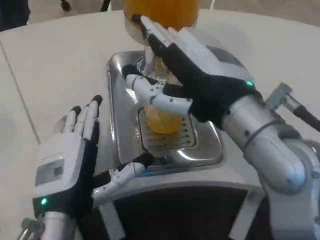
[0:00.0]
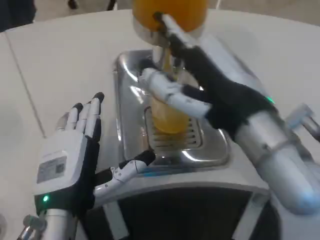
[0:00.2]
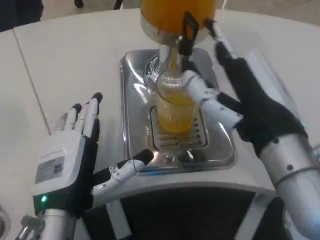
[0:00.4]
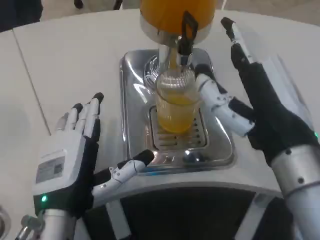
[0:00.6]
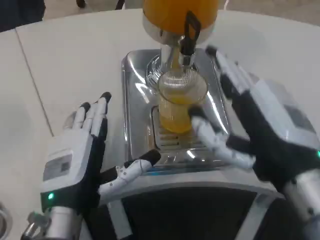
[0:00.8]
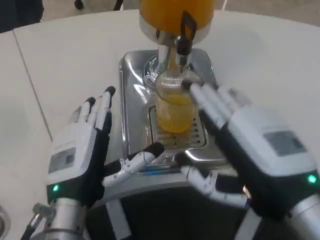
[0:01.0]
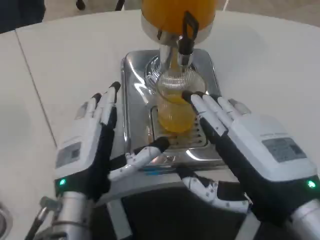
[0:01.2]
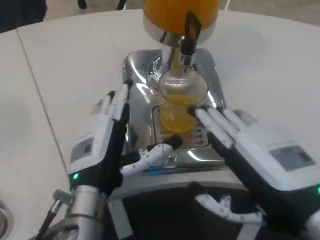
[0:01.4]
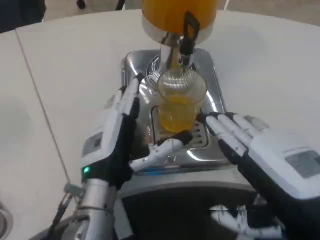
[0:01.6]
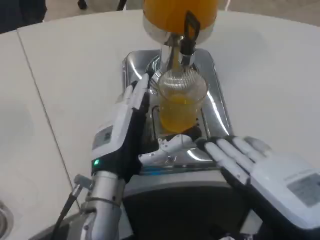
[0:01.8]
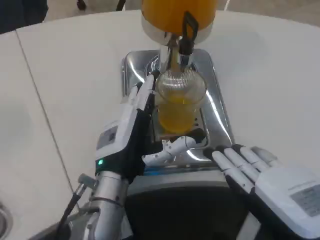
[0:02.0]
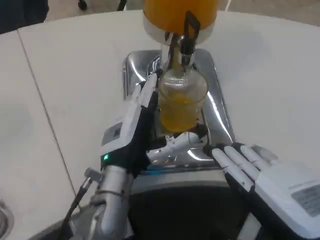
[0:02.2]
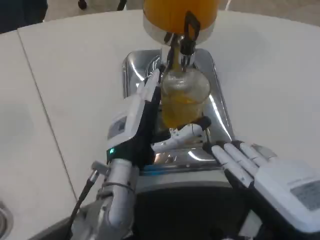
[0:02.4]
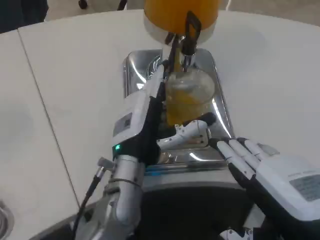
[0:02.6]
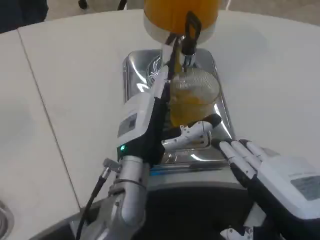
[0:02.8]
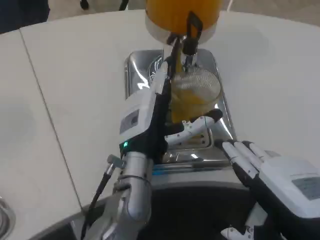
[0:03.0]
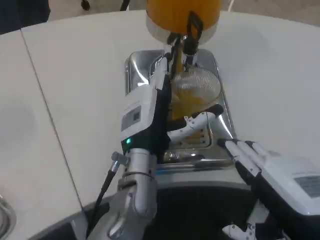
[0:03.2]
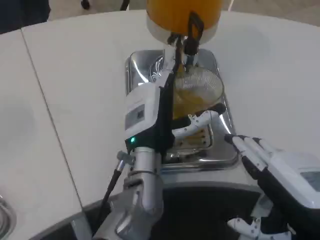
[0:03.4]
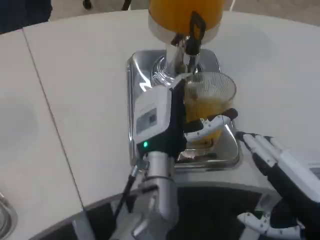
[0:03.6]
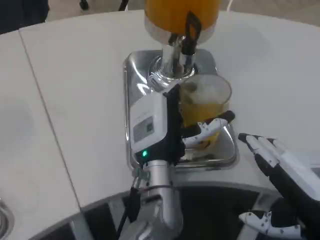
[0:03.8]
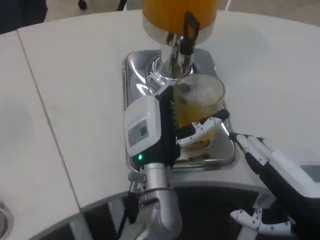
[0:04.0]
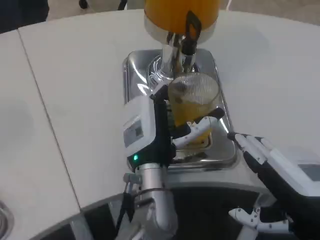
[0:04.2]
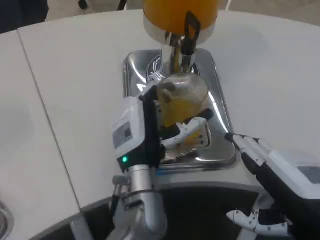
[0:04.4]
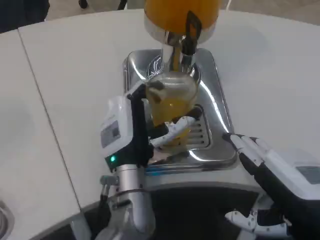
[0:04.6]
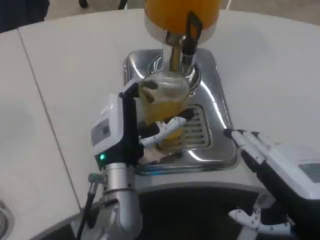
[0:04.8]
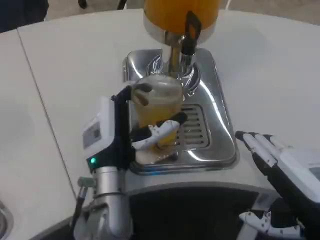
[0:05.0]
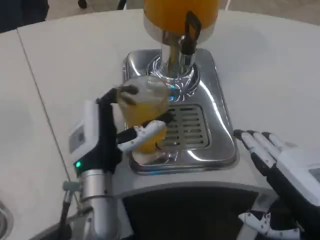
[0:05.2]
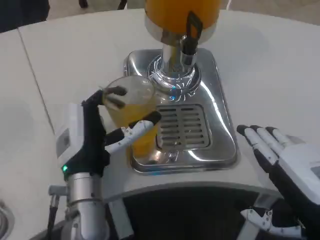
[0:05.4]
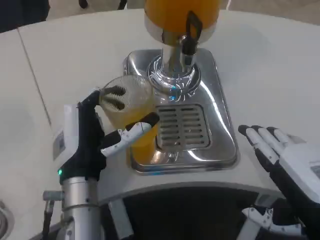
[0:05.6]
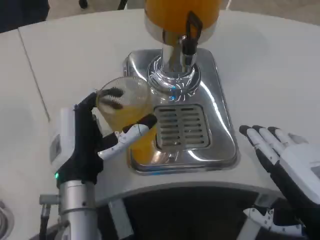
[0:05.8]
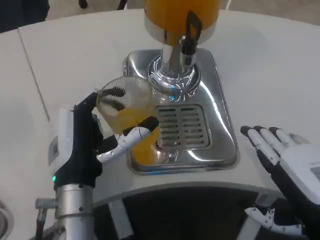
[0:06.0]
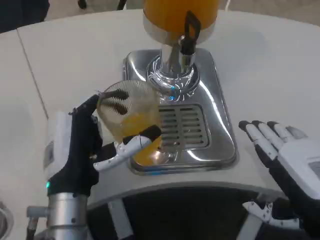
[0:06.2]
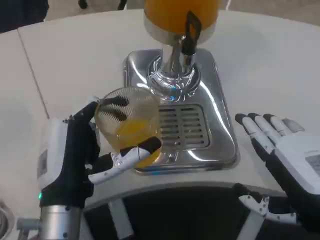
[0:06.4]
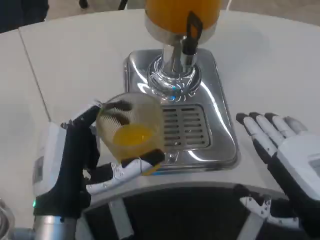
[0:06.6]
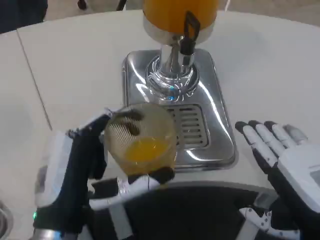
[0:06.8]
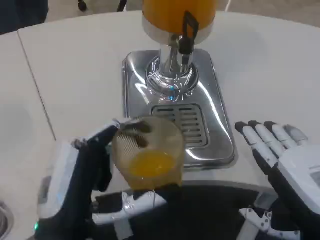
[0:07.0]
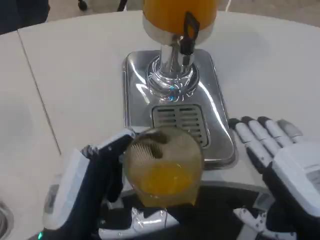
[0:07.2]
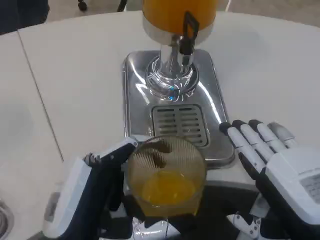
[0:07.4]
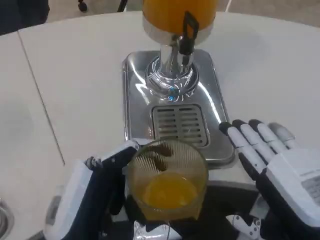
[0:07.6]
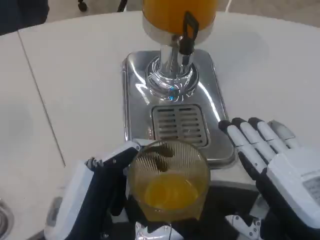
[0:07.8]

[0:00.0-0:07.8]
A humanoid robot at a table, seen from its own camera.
Task of the whole recording: Grasp the cup under the faucet to collect the drink, then remove the cup.
0:00.0 to 0:01.6: The left hand travels forward by some 5 cm. Meanwhile the right hand shifts approximately 15 cm to the right, backward and downward.
0:01.6 to 0:03.2: The left hand is displaced to the right by approximately 5 cm.
0:04.6 to 0:06.2: The left hand shifts approximately 10 cm to the left and backward.
0:06.2 to 0:07.8: The left hand moves backward, some 10 cm.

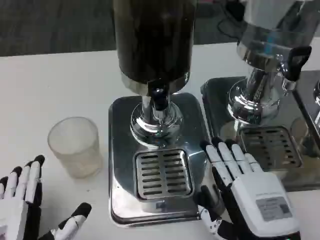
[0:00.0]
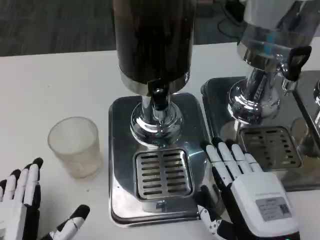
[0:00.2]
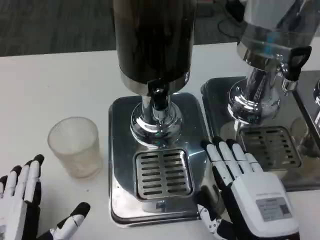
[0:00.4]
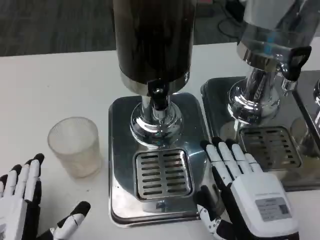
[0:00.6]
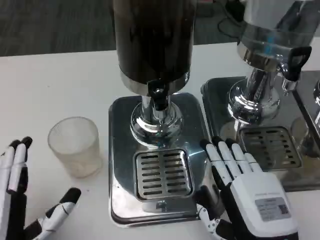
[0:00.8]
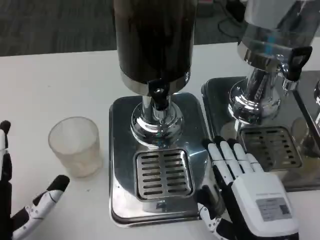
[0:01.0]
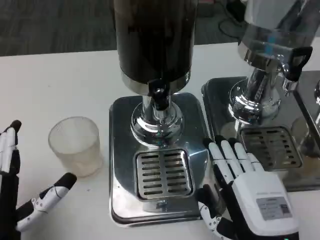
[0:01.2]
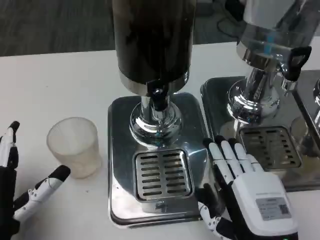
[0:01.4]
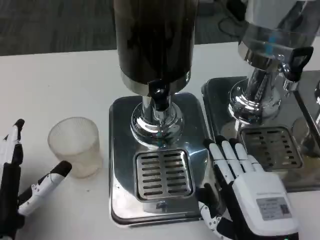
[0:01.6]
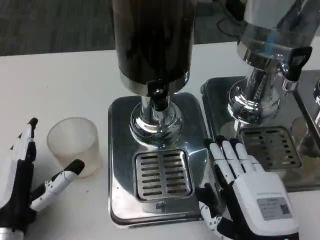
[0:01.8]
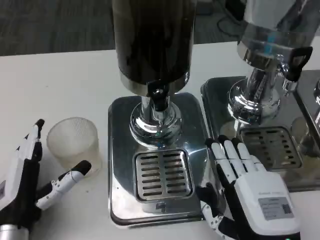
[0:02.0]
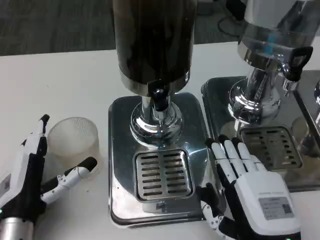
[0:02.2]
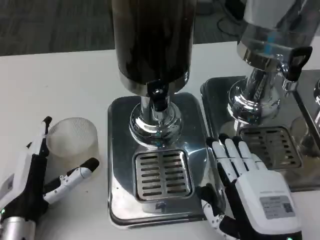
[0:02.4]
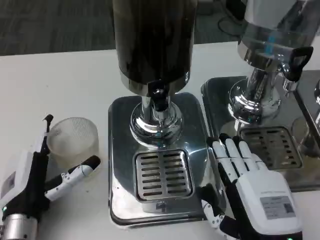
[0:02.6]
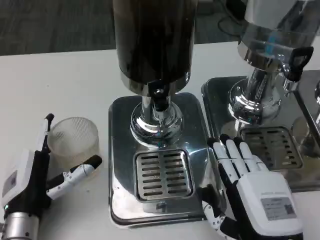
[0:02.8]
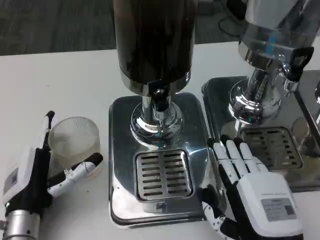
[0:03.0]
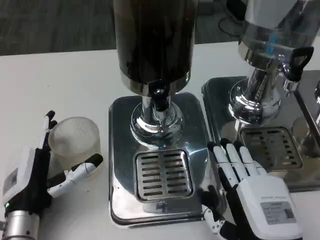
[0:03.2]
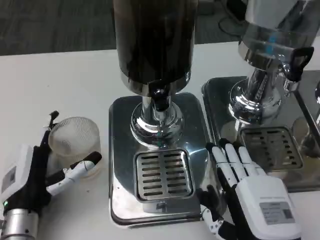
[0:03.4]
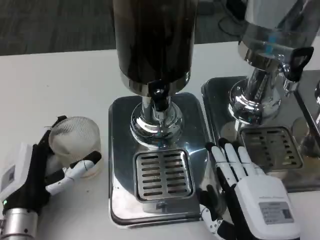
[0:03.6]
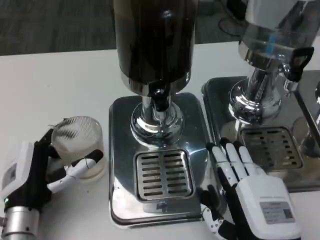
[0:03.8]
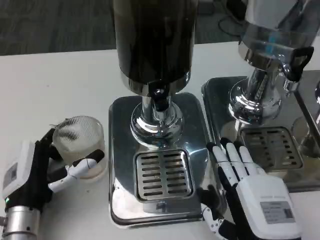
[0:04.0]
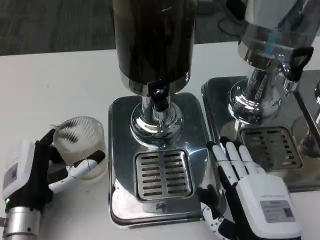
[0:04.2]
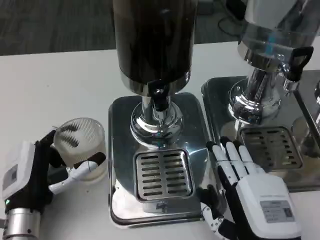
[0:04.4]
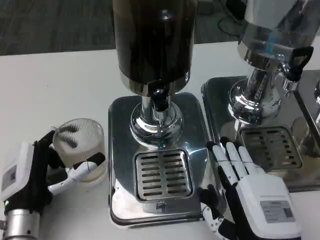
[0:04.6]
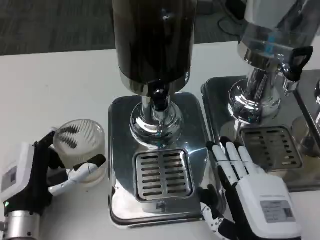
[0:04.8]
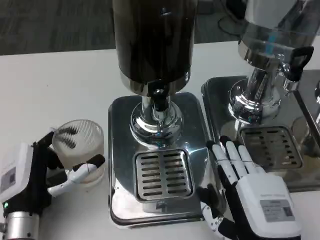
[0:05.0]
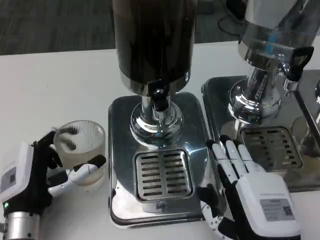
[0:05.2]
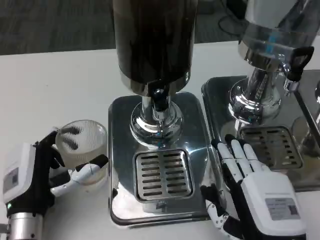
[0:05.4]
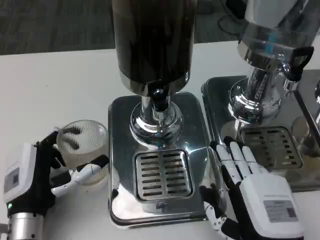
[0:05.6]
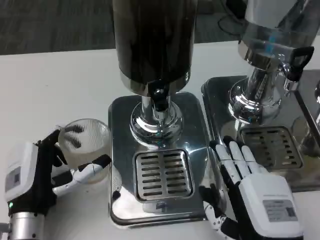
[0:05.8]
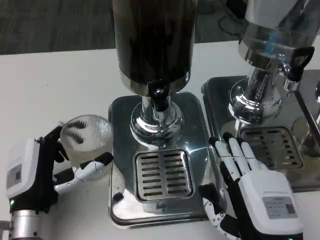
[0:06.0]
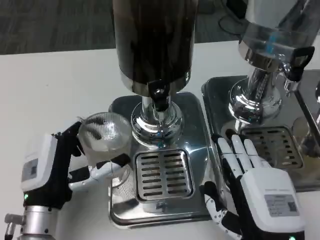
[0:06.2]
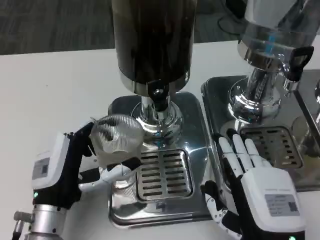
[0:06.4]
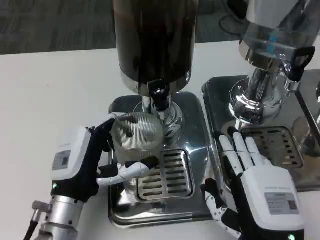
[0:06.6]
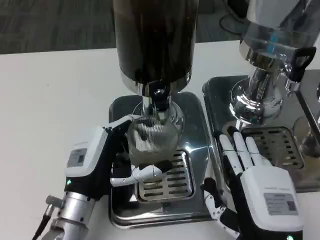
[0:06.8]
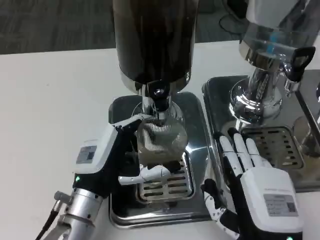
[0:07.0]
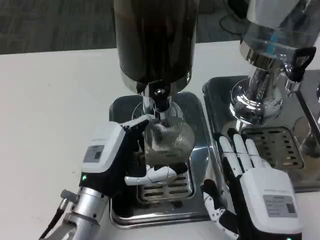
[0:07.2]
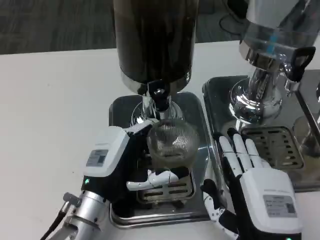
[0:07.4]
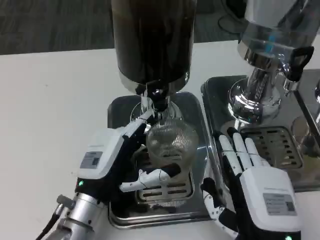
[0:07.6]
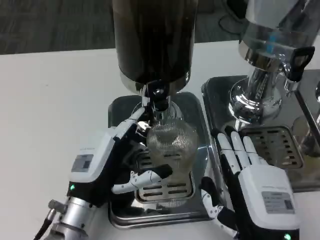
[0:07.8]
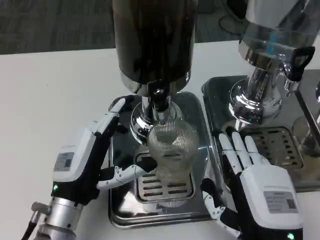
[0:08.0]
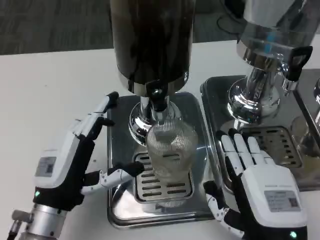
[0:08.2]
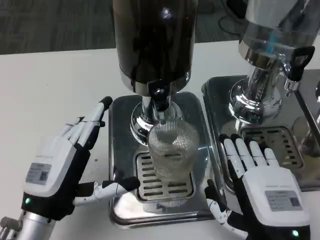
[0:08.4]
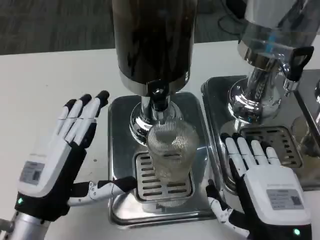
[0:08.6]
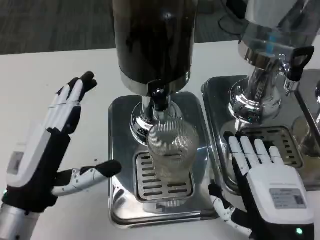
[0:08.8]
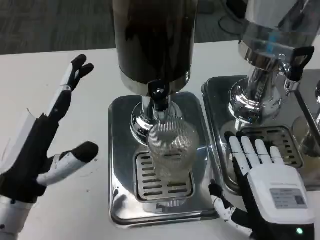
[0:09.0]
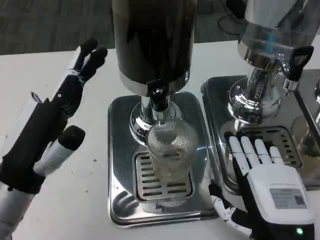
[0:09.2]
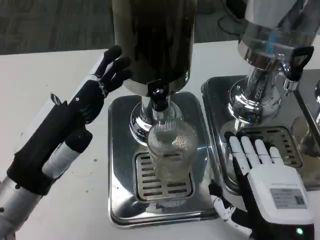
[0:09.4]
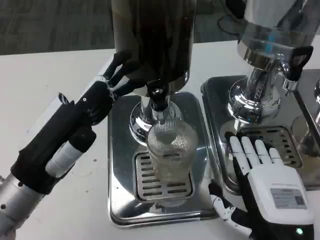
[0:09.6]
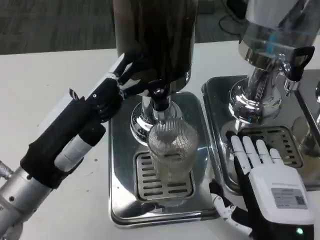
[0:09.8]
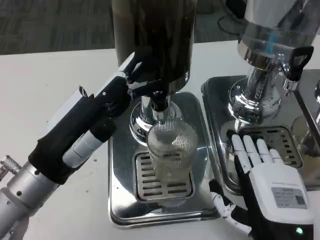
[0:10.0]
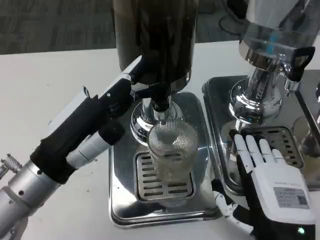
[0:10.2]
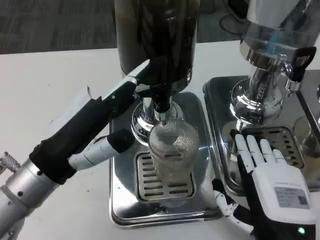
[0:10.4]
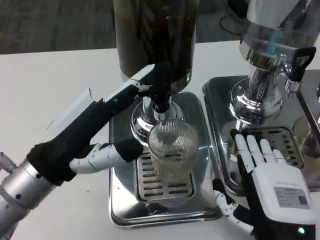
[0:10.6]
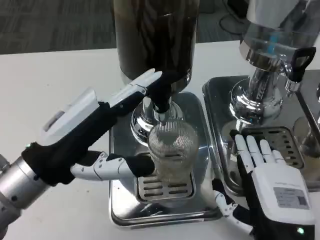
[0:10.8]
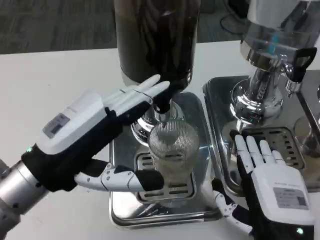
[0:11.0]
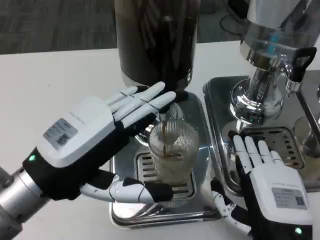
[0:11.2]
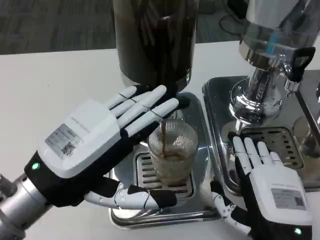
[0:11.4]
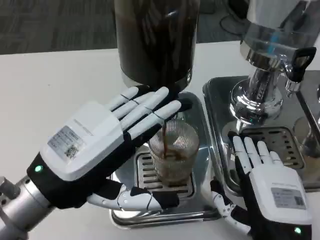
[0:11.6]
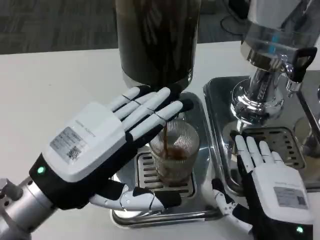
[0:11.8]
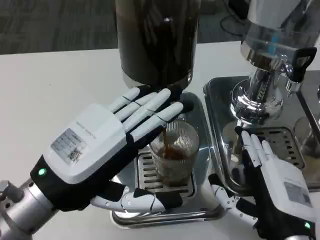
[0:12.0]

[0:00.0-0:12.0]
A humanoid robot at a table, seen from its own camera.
Task of the whole recording: Grasp the cup under the faucet to collect the drink, then remove the cup.
0:00.0 to 0:01.6: The left hand is displaced forward by roughly 5 cm.
0:01.6 to 0:06.0: The hands stay close to where they were, moving slightly.
0:06.0 to 0:07.6: The left hand goes about 5 cm to the right.
0:07.6 to 0:09.0: The left hand travels upward and to the left by about 10 cm.
0:09.0 to 0:10.4: The left hand shifts by approximately 5 cm.

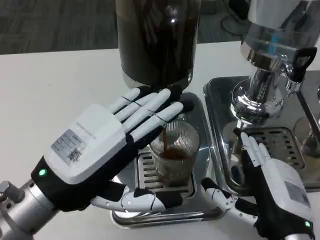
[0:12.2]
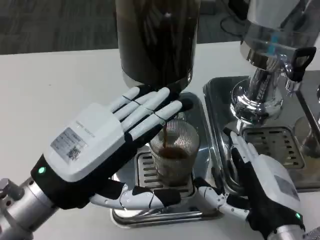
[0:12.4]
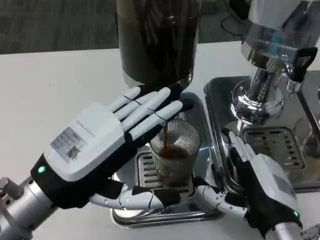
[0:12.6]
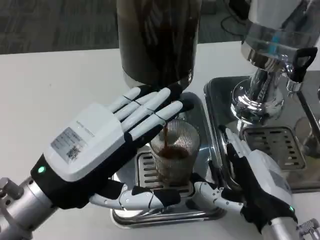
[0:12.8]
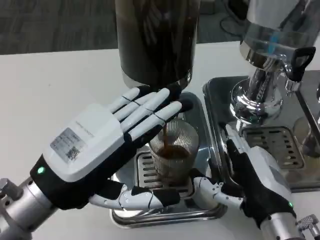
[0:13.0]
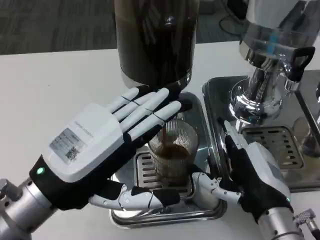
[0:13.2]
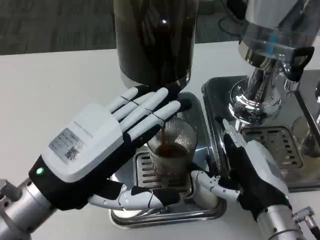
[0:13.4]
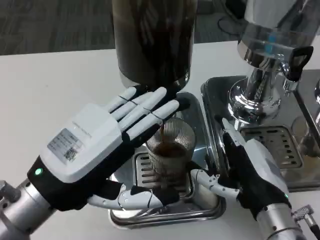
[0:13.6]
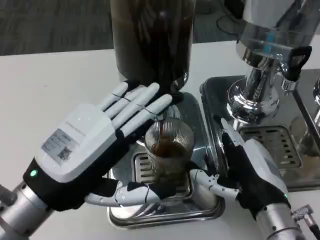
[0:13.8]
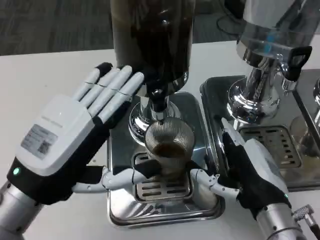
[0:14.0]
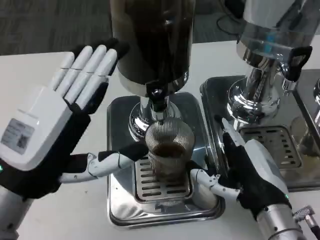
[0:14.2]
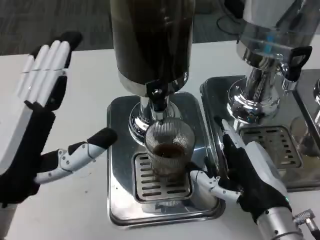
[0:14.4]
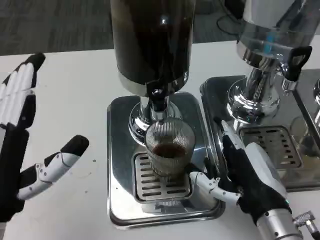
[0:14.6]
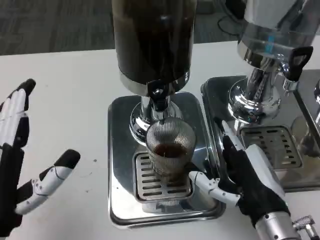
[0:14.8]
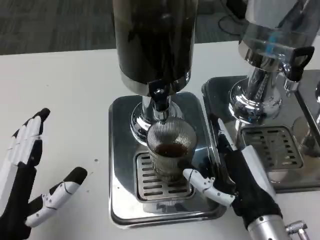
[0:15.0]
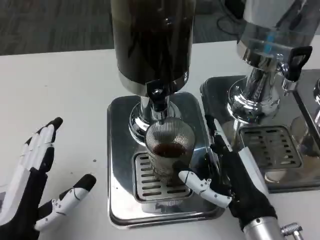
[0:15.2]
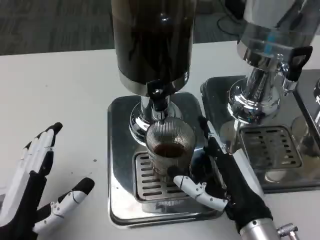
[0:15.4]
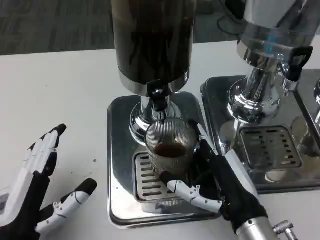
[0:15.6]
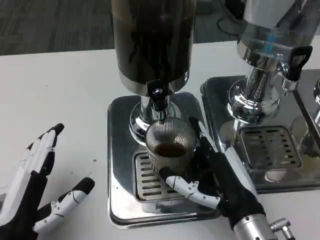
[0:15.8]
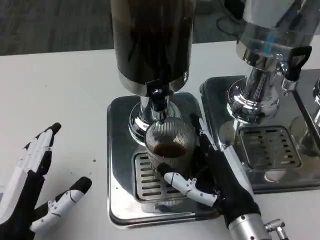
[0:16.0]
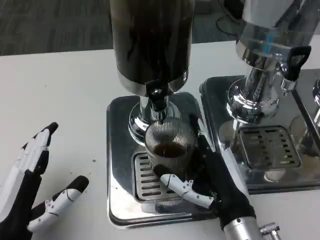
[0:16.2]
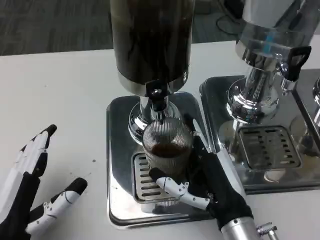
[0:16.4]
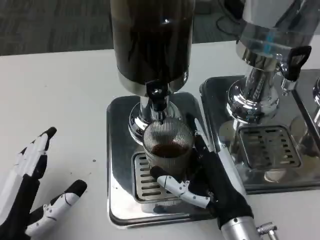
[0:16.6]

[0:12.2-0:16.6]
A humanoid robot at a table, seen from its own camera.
Task of the whole recording: Grasp the cup under the faucet to collect the drink, then remove the cup.
0:13.6 to 0:15.2: The left hand shifts about 10 cm downward.
0:15.2 to 0:16.6: The hands move only a little.
